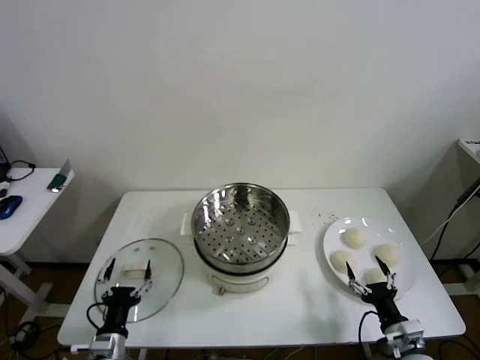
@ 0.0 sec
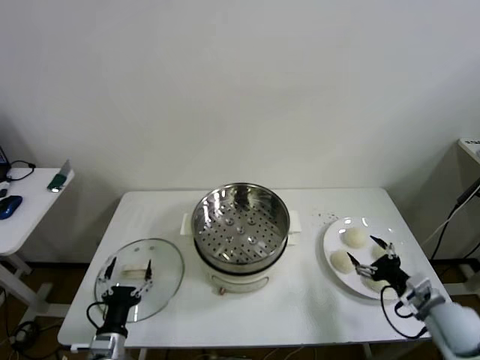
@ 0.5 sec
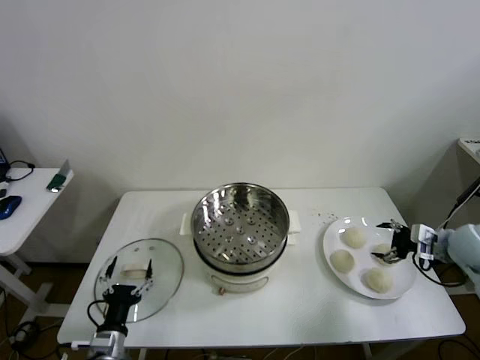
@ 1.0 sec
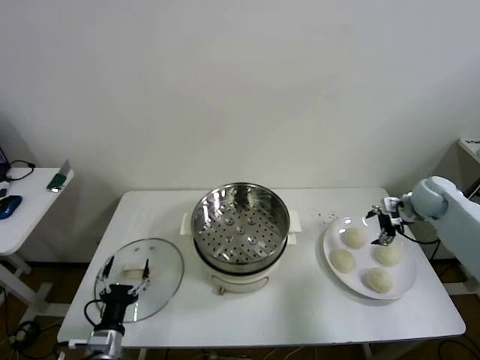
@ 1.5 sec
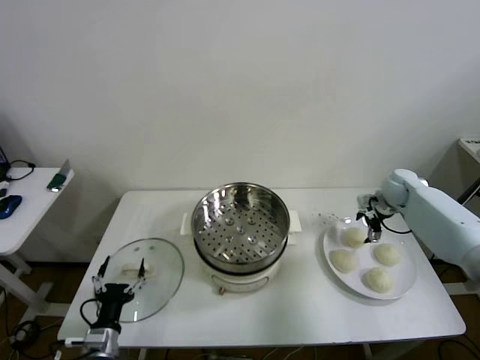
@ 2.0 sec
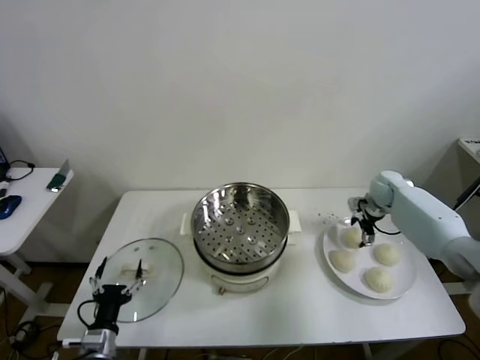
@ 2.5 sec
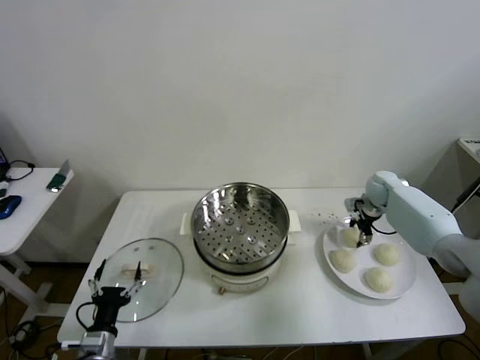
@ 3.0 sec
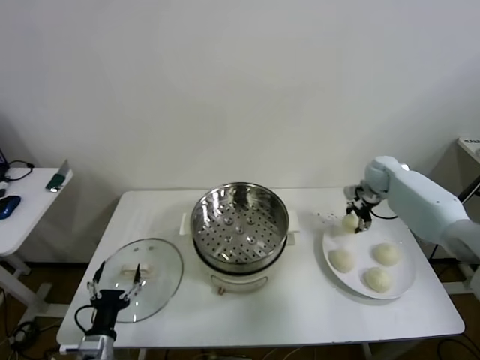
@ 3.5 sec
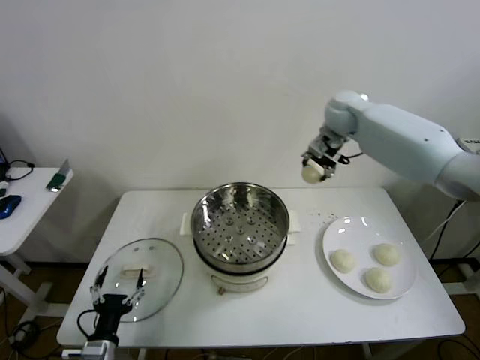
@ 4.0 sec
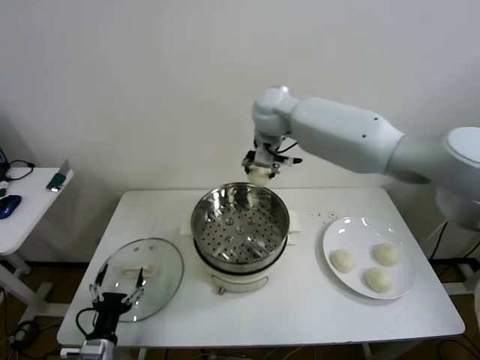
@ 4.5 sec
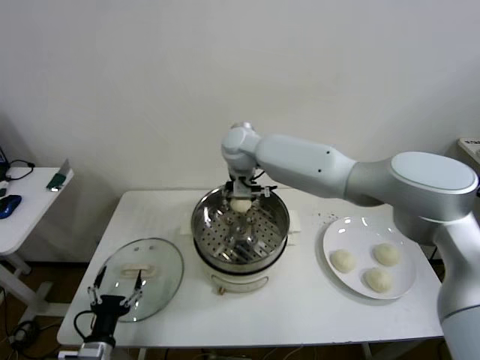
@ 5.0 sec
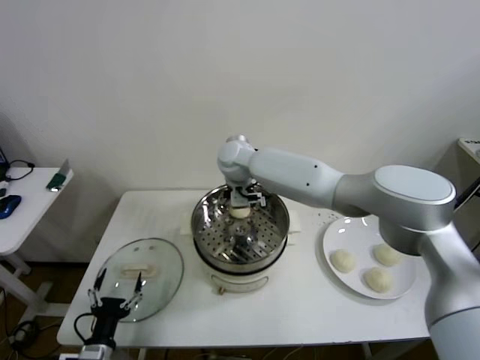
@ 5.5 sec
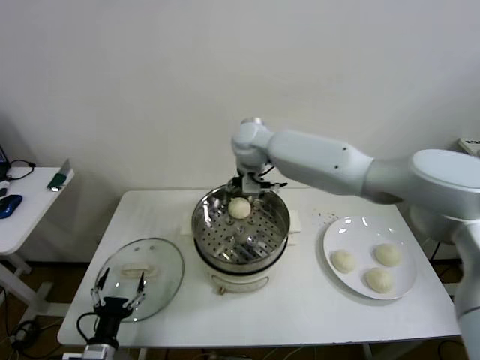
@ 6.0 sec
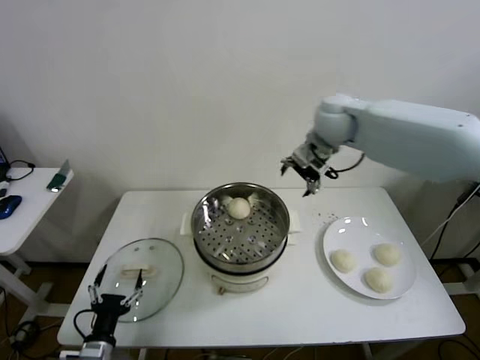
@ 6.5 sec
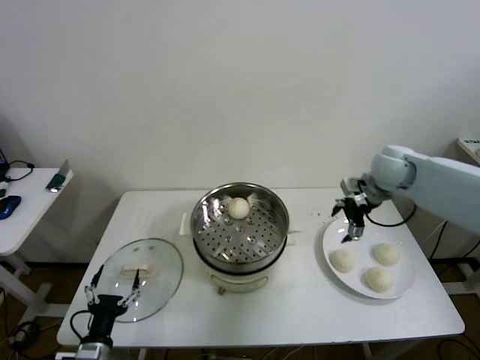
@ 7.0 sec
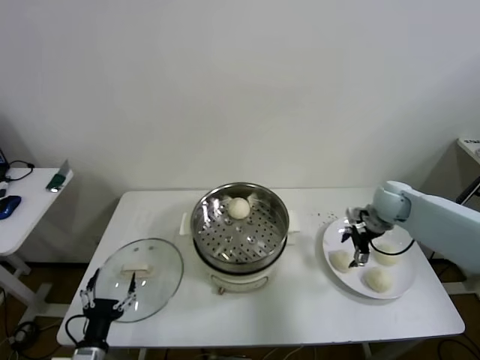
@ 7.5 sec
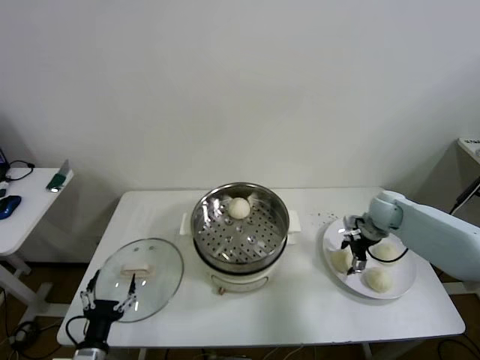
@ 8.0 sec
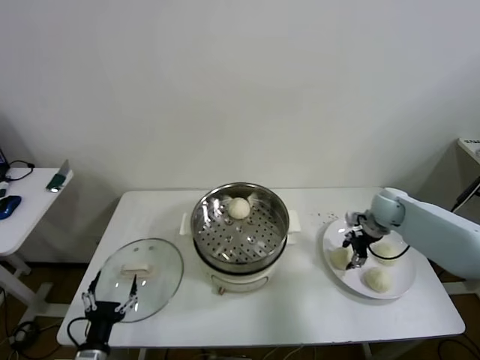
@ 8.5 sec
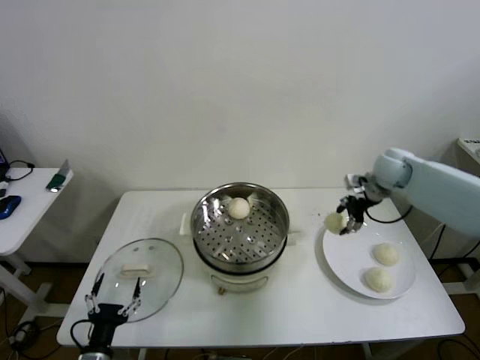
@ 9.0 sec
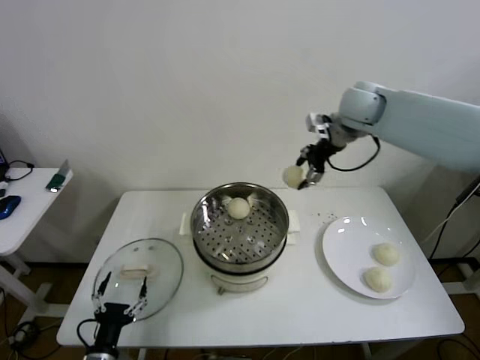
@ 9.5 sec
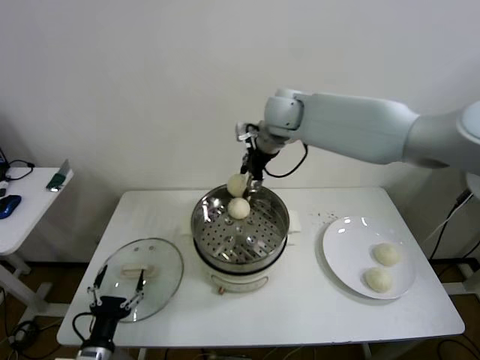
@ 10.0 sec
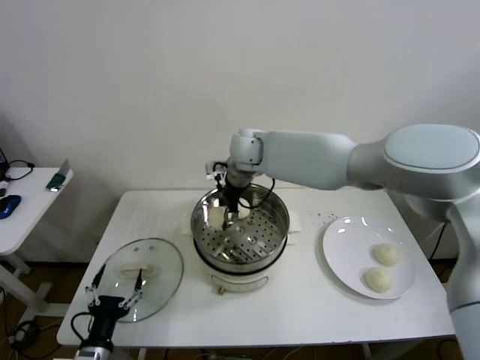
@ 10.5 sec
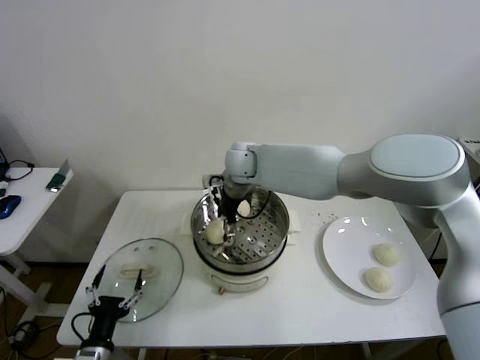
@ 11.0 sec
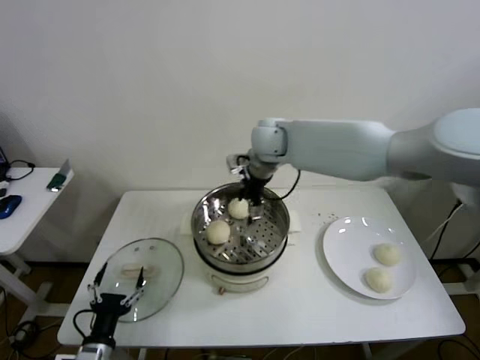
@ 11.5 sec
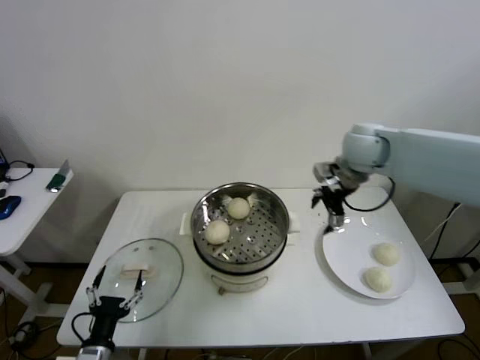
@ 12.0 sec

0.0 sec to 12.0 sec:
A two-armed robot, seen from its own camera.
Step, 0.0 sec to 2.5 sec: Grasp the baozi in the plate with right gripper.
Step, 3.0 sec to 5.5 sec: Place the baozi on the steamer with right gripper.
Step, 6.0 sec to 8.0 sec: Grasp the baozi in the plate with right gripper.
Step, 8.5 sec to 11.0 sec: Place the baozi on the steamer with right gripper.
2.0 sec to 4.0 sec: The right gripper moves upward and to the left, some 30 cm, and closes its fingers.
4.0 sec to 6.0 sec: The right gripper moves to the left, some 15 cm, and opens up.
6.0 sec to 8.0 sec: The right gripper goes some 40 cm to the right and downward.
8.0 sec to 10.0 sec: The right gripper travels to the left and upward by approximately 40 cm, and closes.
10.0 sec to 12.0 sec: The right gripper travels to the right by roughly 20 cm, and opens its fingers.

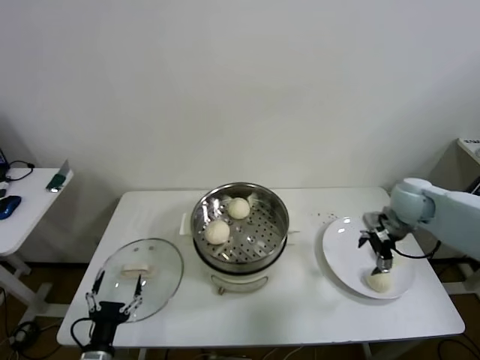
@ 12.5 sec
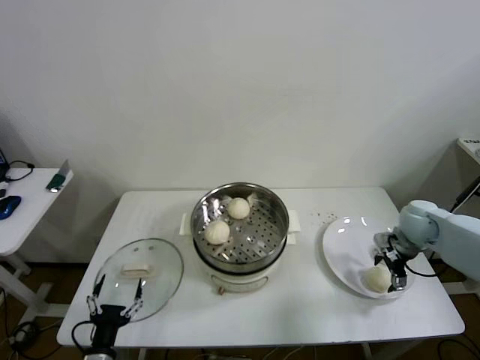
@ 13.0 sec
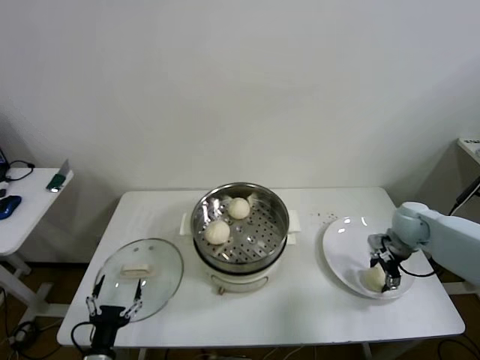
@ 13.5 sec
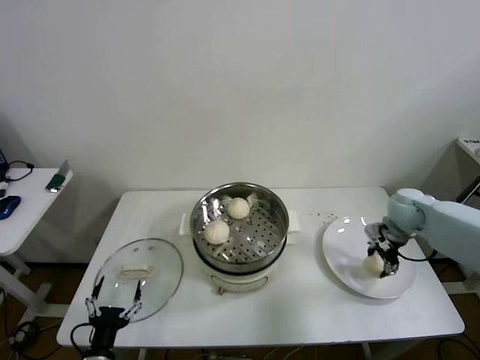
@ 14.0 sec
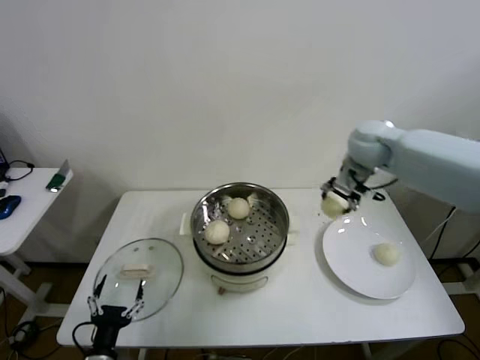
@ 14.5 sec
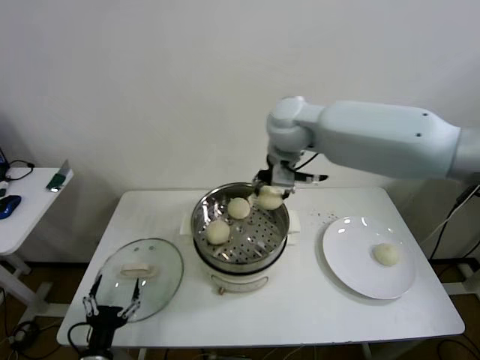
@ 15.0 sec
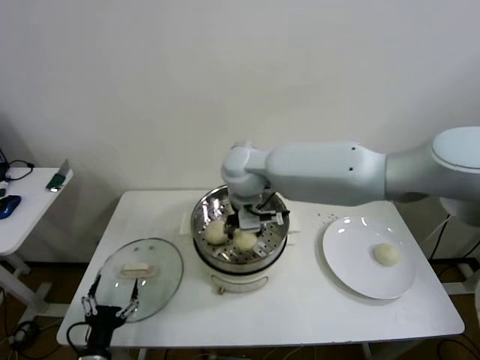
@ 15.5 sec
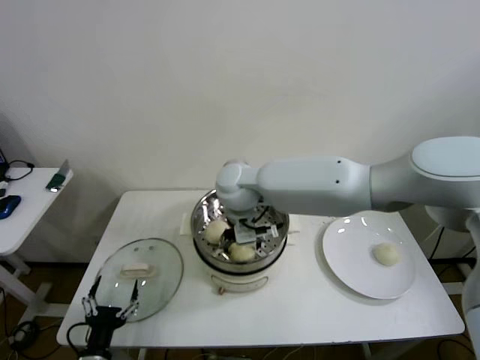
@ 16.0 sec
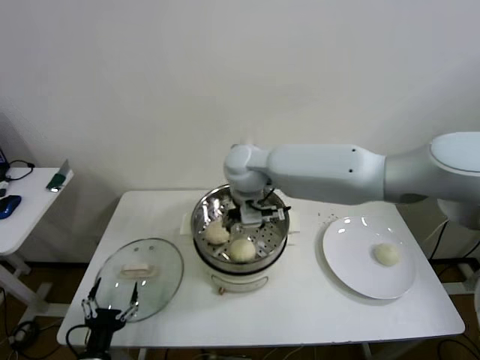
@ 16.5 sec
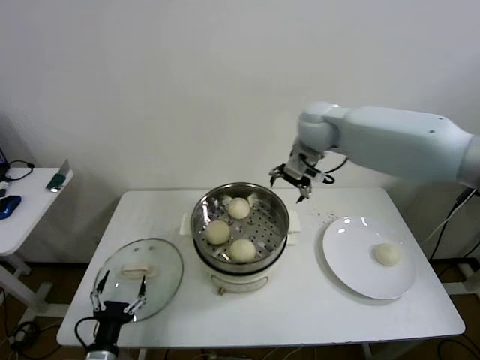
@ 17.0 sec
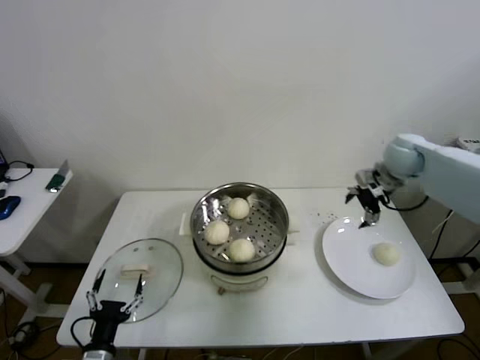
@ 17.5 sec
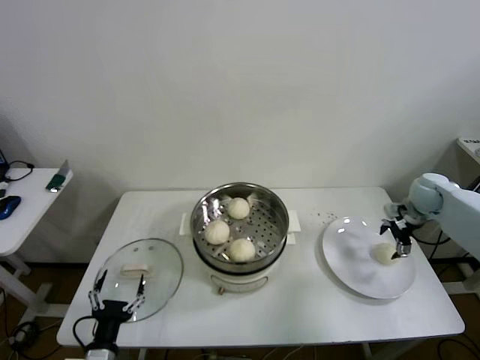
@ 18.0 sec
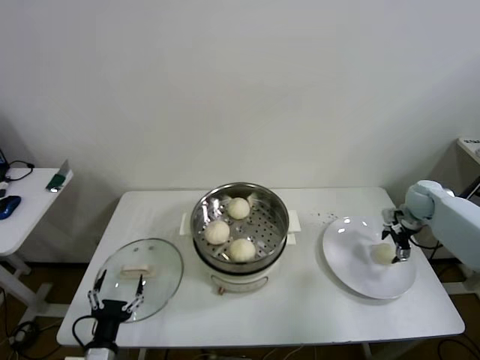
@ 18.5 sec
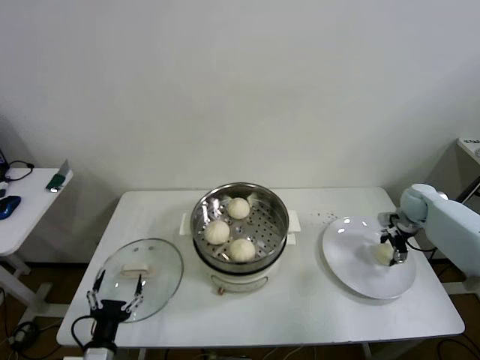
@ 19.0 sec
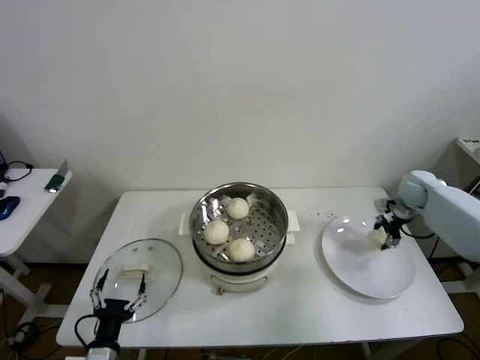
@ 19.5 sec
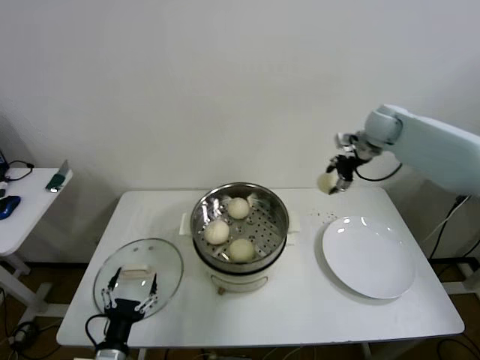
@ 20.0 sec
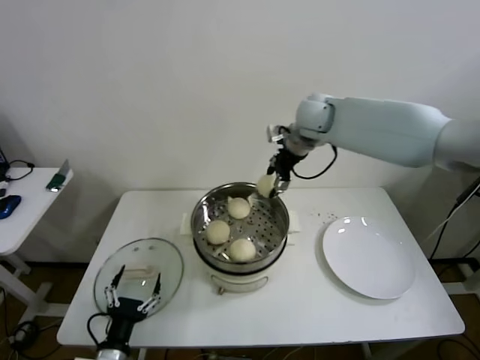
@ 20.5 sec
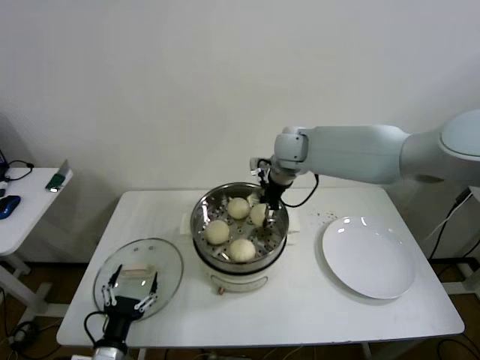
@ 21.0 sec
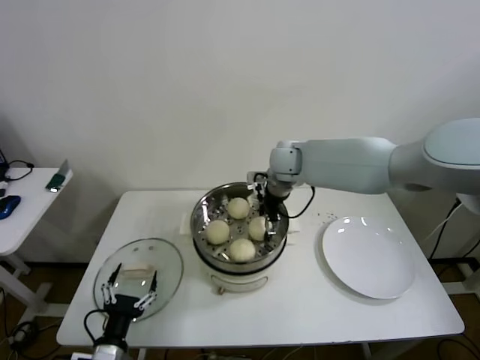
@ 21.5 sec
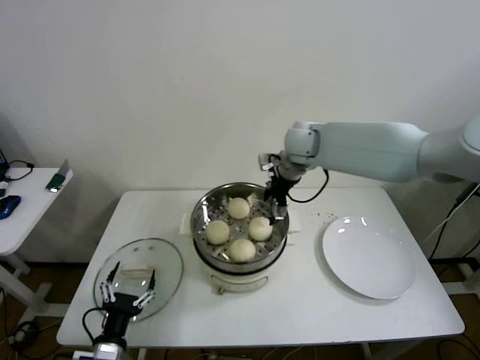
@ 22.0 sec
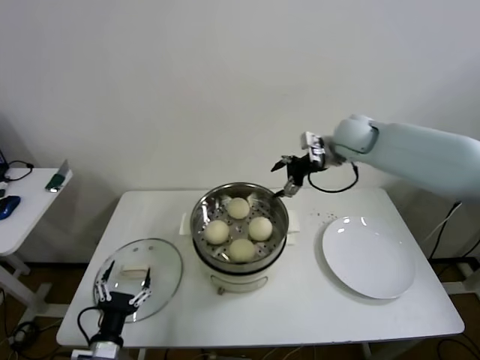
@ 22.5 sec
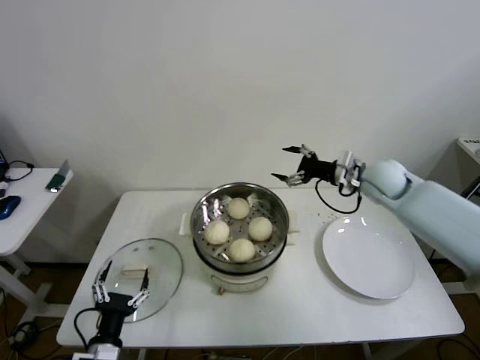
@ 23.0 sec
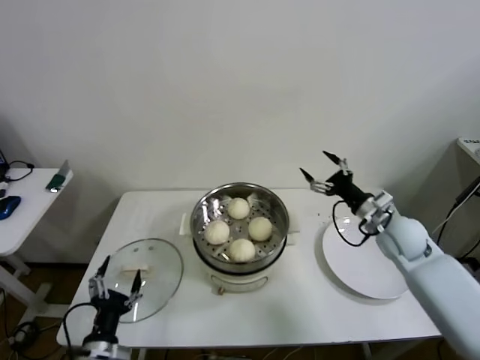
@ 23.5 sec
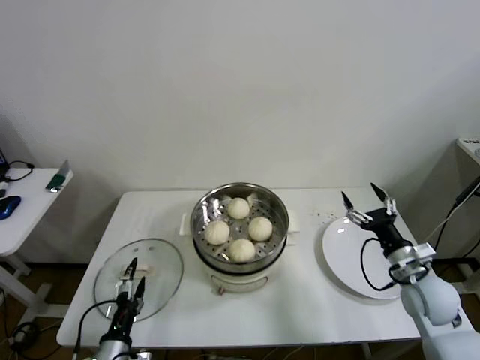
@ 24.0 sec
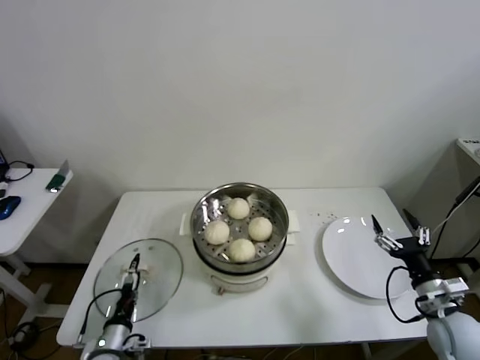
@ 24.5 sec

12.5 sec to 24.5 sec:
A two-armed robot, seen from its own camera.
Step, 14.0 sec to 16.5 sec: Place the baozi on the steamer with right gripper.
Step, 17.0 sec to 19.0 sec: Grasp the baozi in the plate with right gripper.
Step, 19.5 sec to 22.0 sec: Place the baozi on the steamer with right gripper.
12.5 sec to 14.5 sec: The right gripper goes approximately 20 cm upward, to the left and forward, and closes its fingers.
14.5 sec to 16.5 sec: The right gripper moves to the left, approximately 25 cm, and opens its fingers.
16.5 sec to 18.5 sec: The right gripper travels to the right by roughly 50 cm.
18.5 sec to 20.5 sec: The right gripper goes about 40 cm to the left and upward, and closes.
20.5 sec to 22.5 sec: The right gripper goes some 10 cm to the right, and opens up.
22.5 sec to 24.5 sec: The left gripper is displaced downward by about 5 cm. The right gripper travels backward, downward and to the right by some 40 cm.

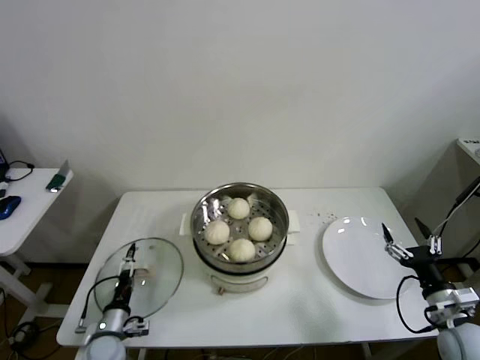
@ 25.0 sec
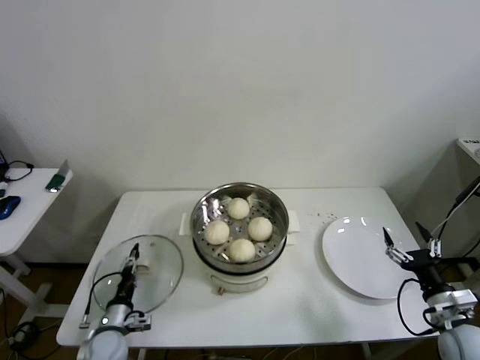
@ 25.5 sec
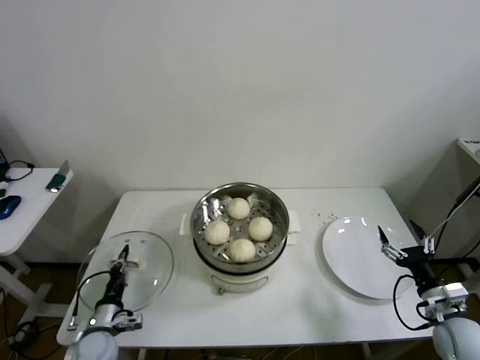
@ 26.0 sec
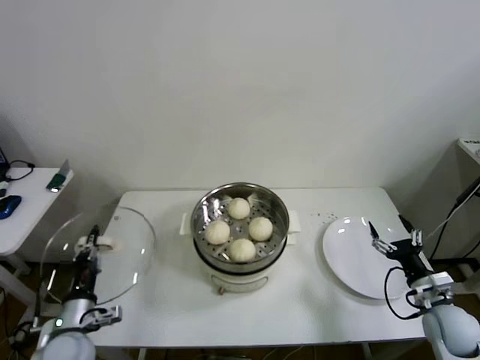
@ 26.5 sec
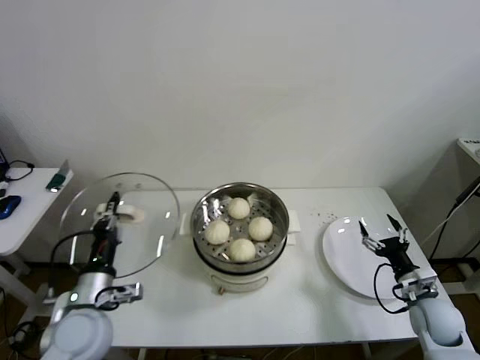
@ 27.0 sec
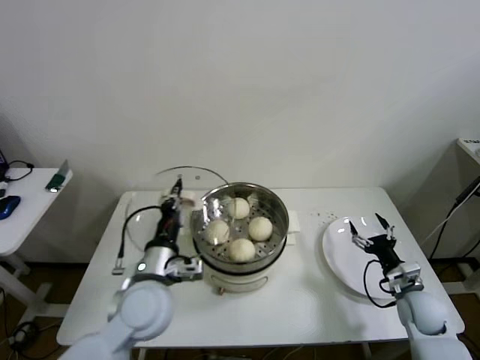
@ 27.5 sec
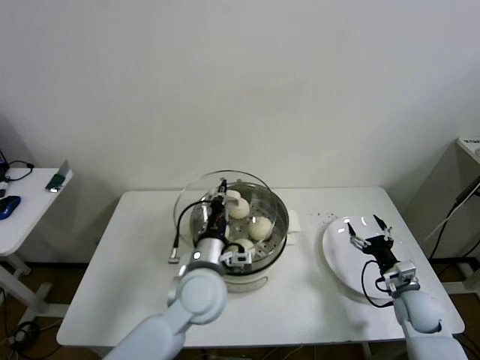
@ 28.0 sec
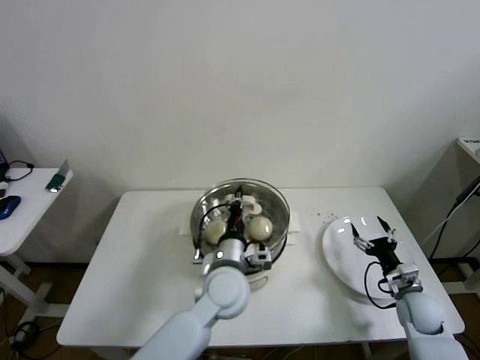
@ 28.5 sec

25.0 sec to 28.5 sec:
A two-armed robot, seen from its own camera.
25.0 sec to 27.0 sec: The left gripper is displaced upward by roughly 20 cm, and closes its fingers. The right gripper is displaced forward by approximately 5 cm.
27.0 sec to 28.5 sec: The left gripper heads to the right, covering approximately 25 cm.
